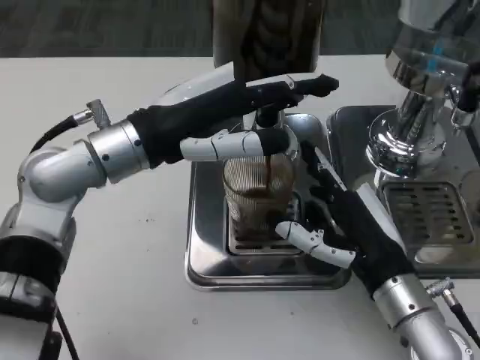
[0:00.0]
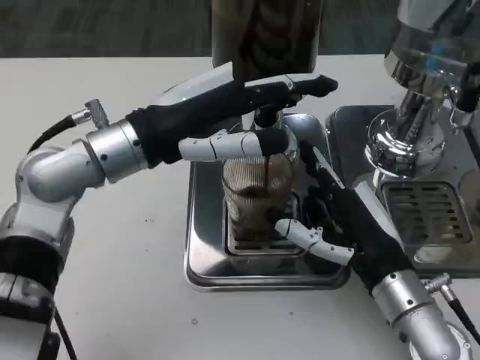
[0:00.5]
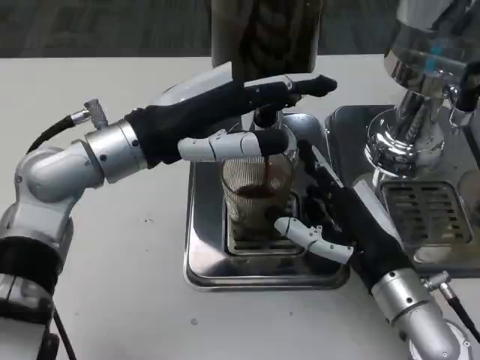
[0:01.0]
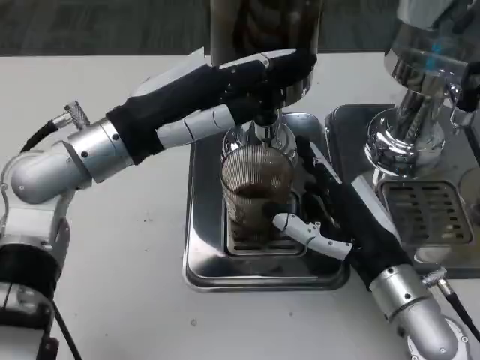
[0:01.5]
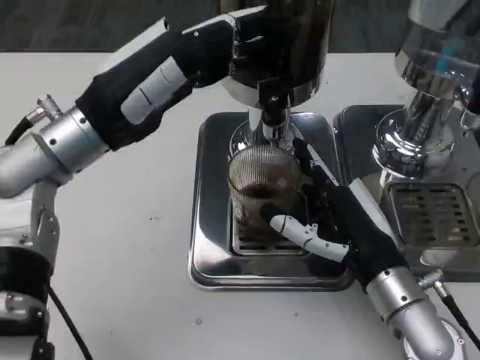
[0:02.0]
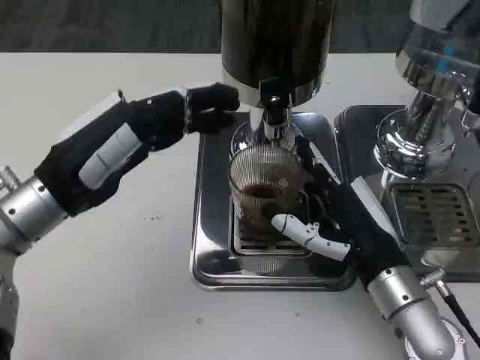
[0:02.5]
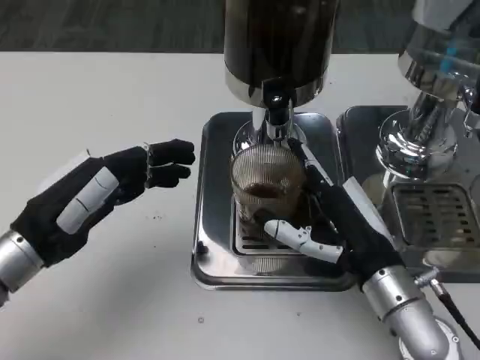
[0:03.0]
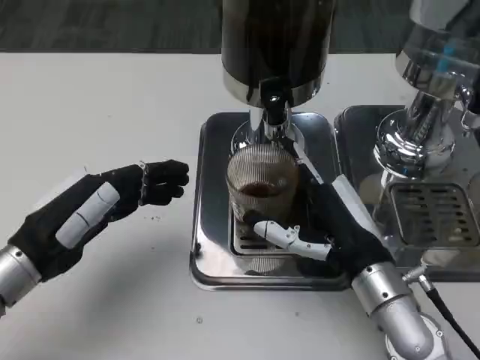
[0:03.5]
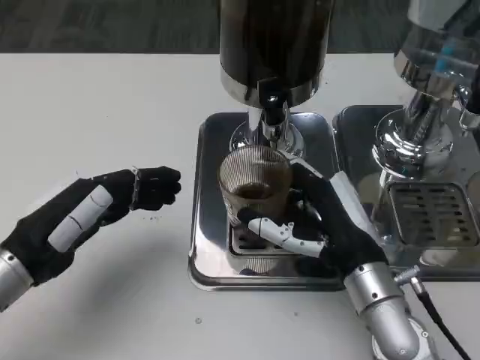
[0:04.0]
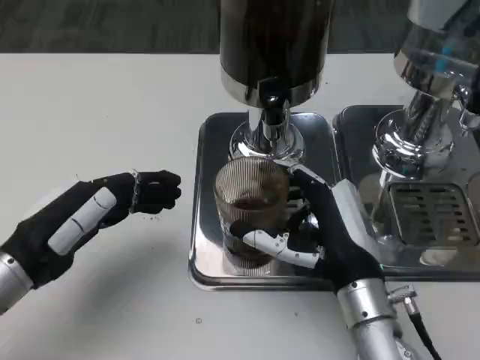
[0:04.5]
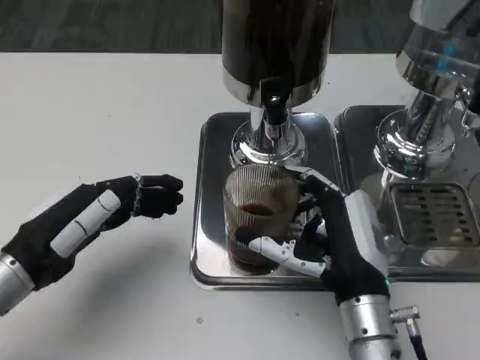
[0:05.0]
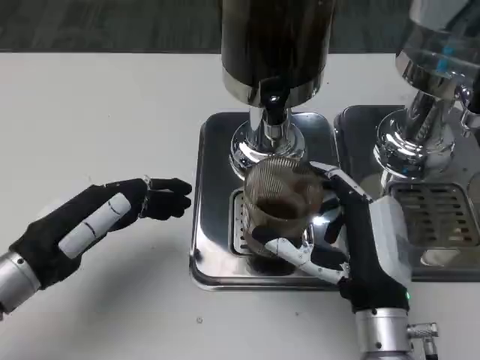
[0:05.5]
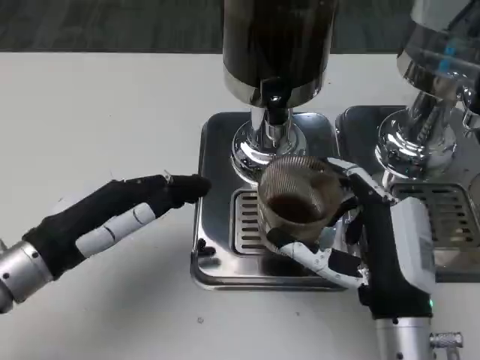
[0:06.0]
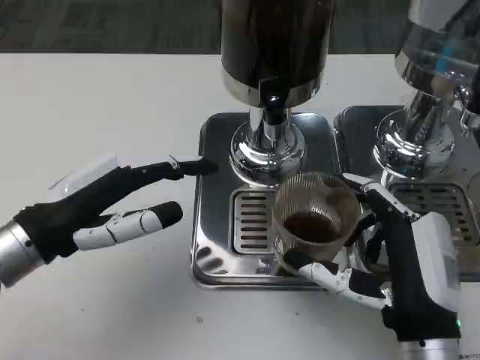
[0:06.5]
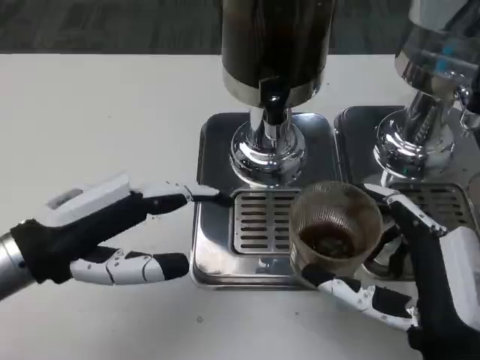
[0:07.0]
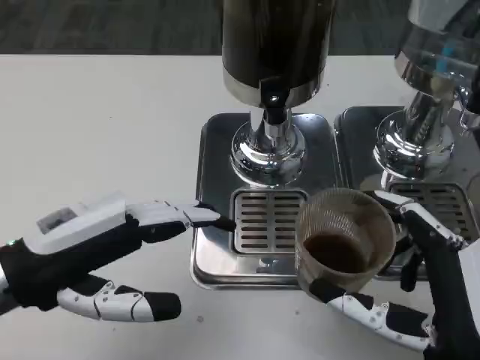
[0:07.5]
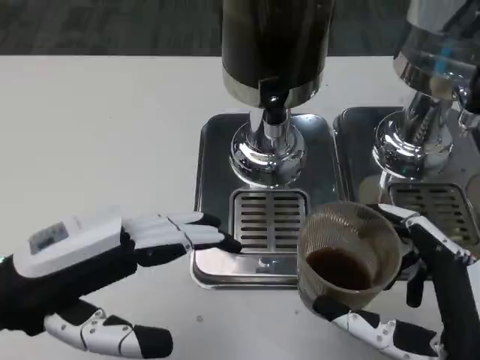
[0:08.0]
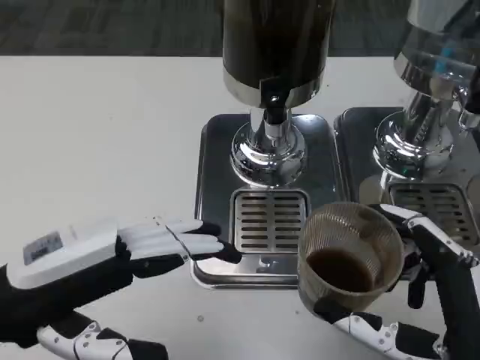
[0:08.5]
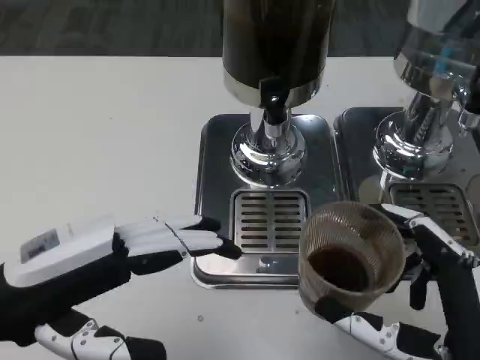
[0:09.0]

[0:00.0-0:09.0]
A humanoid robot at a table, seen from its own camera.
Task of the whole recording: Grasp the cup under the faucet to collect the drink, then remove the cup.
0:02.0 to 0:04.5: The left hand shifts roughly 15 cm downward, backward and to the left.
0:04.5 to 0:07.0: The right hand moves backward and to the right, roughly 10 cm. The left hand shifts some 5 cm upward.

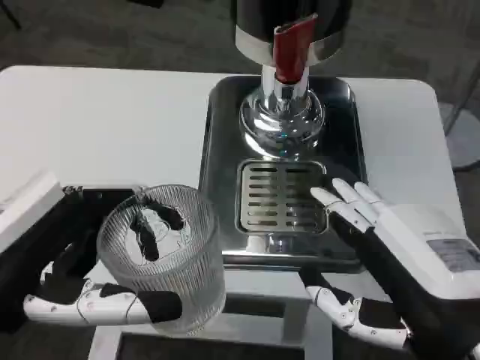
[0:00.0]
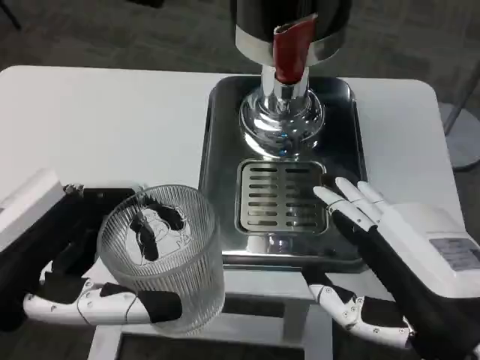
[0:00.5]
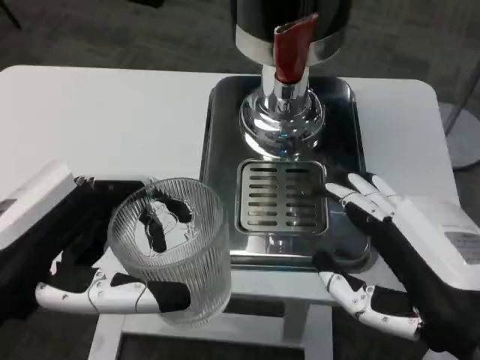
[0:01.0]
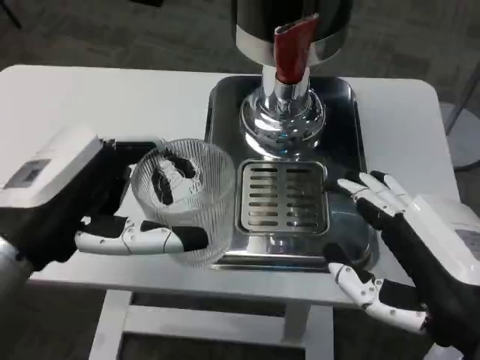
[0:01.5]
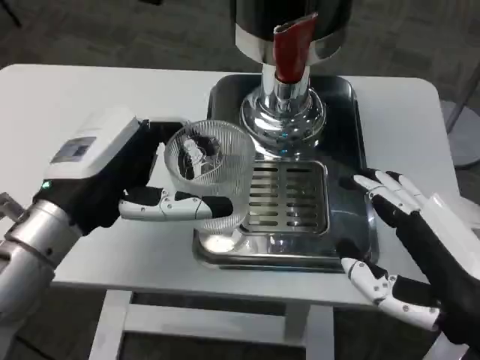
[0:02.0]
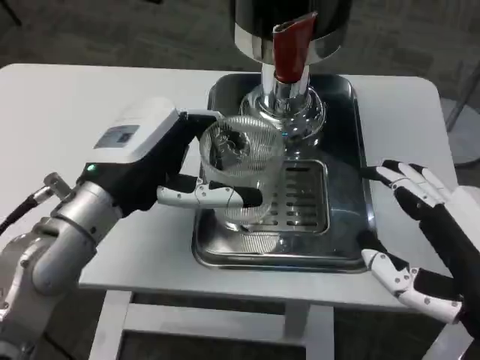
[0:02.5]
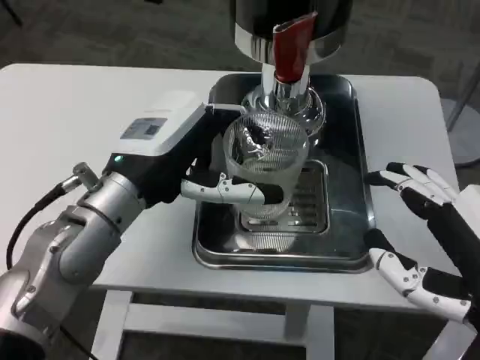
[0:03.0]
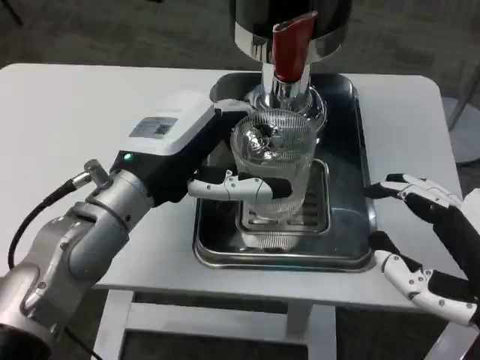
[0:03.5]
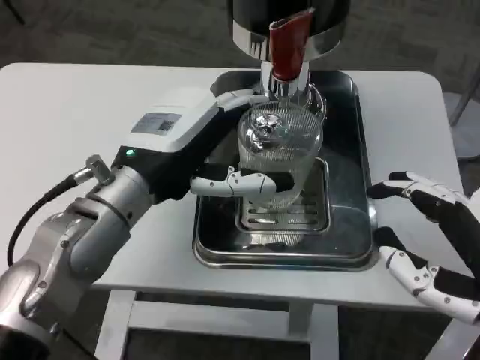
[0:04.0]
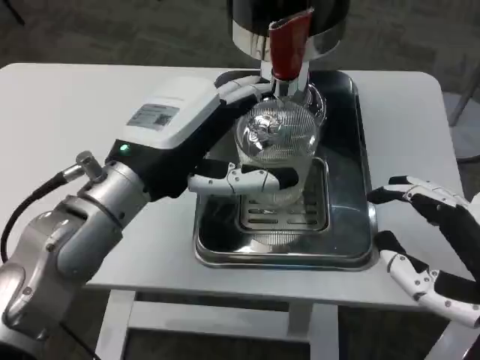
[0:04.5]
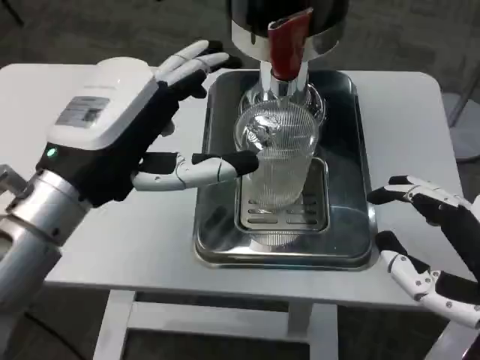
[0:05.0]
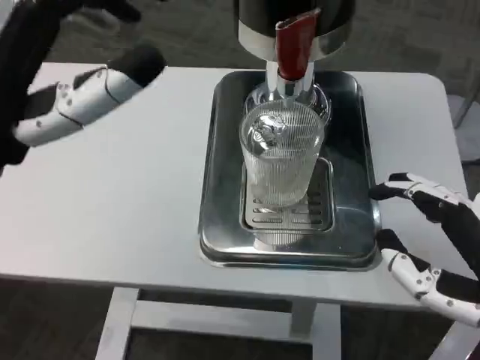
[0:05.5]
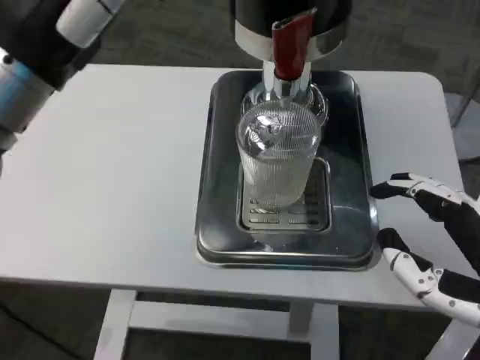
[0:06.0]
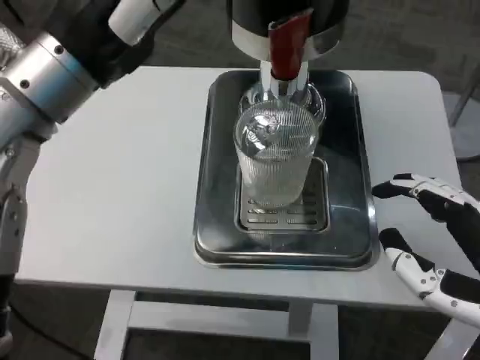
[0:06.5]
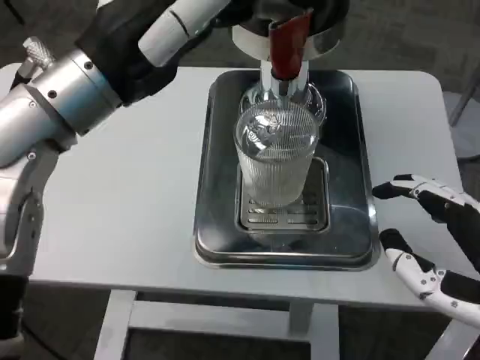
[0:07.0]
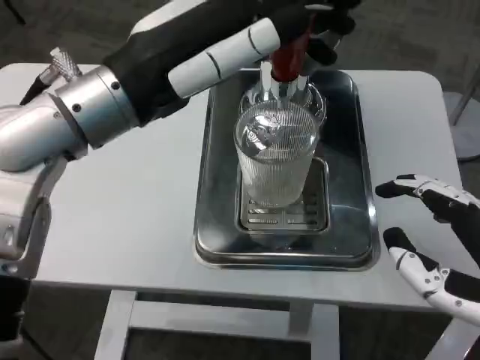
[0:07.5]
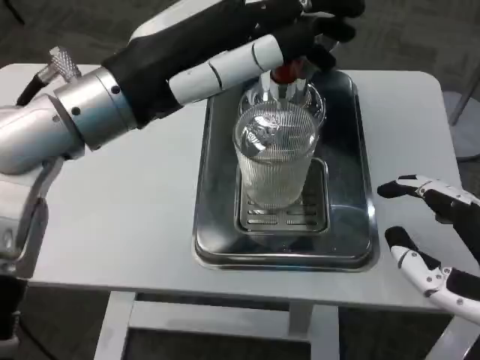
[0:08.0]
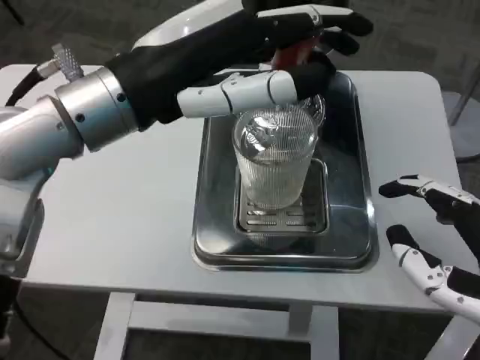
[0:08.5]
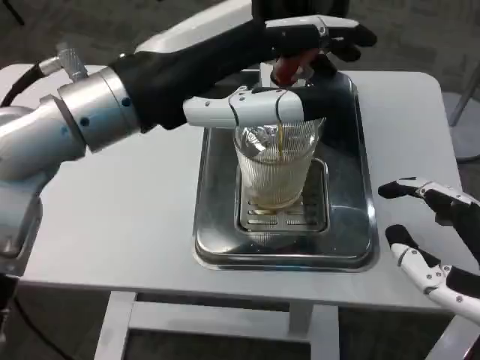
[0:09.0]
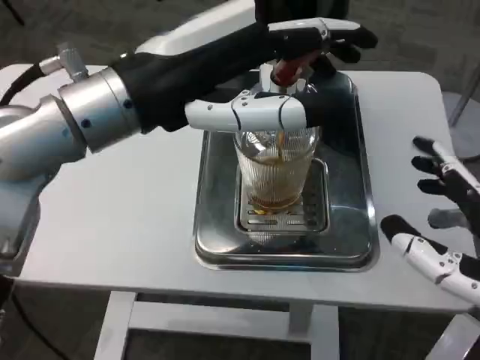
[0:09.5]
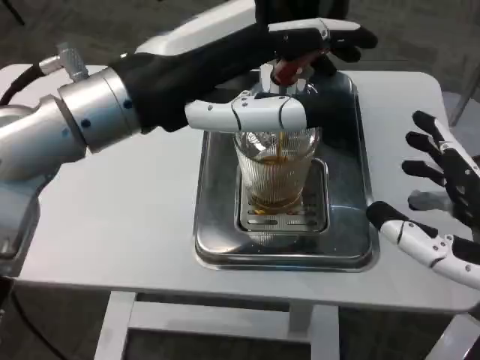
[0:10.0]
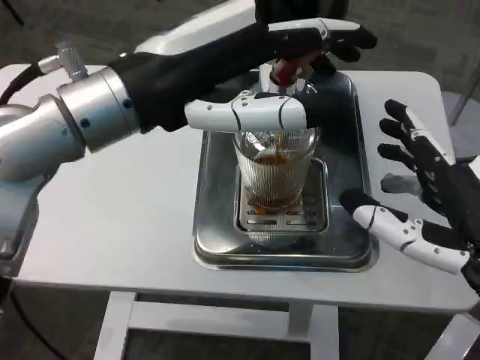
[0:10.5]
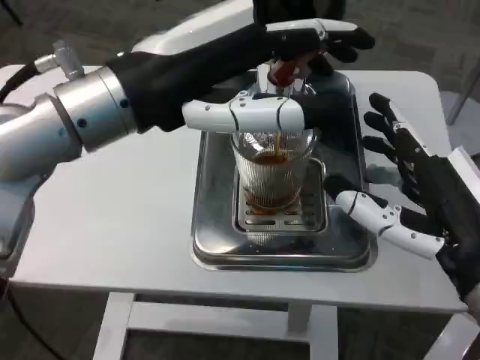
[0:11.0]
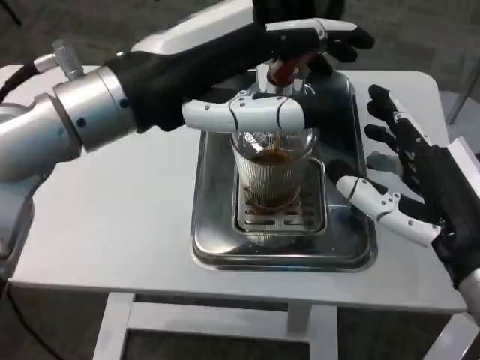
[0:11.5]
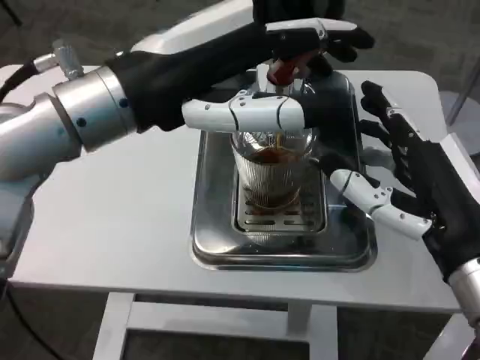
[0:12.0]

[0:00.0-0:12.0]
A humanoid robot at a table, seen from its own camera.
Task of the whole recording: Grasp the cup under the faucet to collect the drink, then remove the cup.
0:00.0 to 0:02.0: The left hand goes roughly 10 cm forward.
0:02.0 to 0:04.0: The left hand travels to the right by roughly 5 cm.
0:04.0 to 0:06.0: The left hand moves upward, some 10 cm.
0:10.0 to 0:12.0: The right hand travels forward by roughly 5 cm.

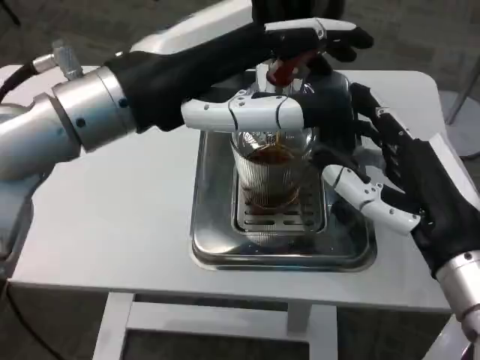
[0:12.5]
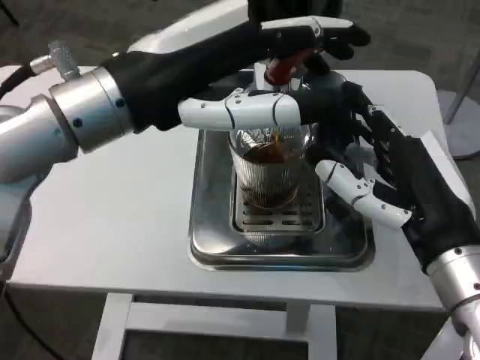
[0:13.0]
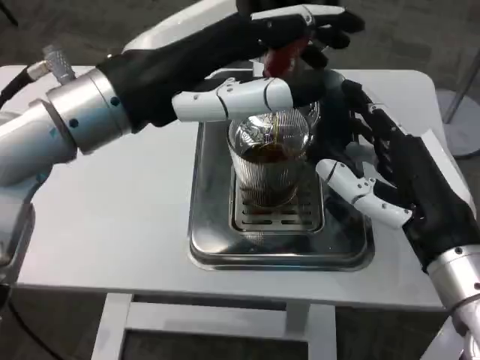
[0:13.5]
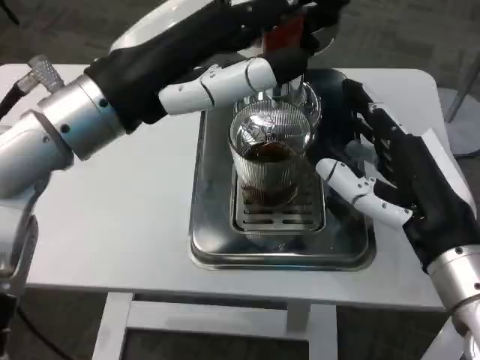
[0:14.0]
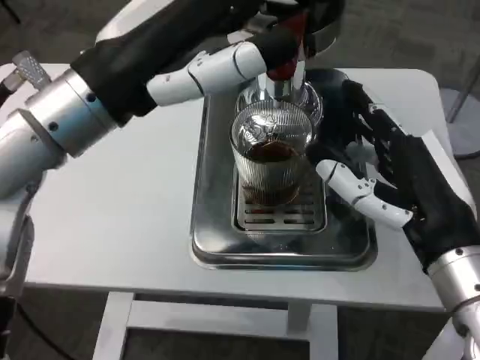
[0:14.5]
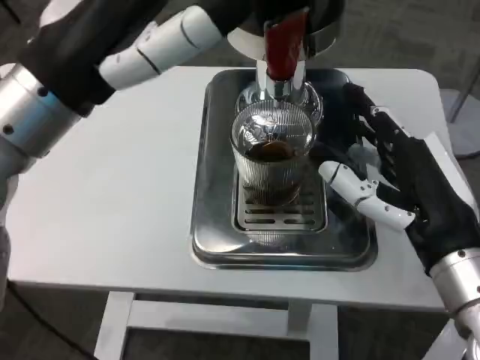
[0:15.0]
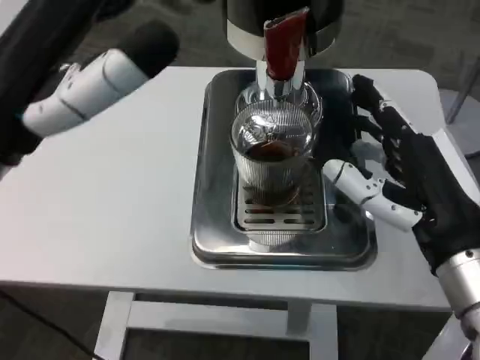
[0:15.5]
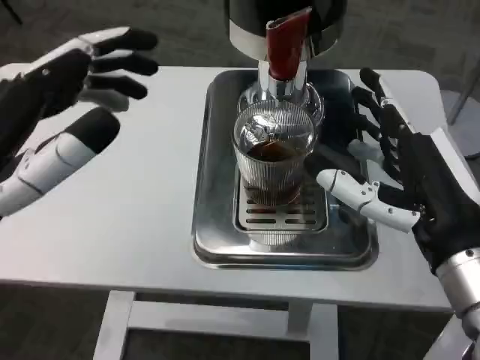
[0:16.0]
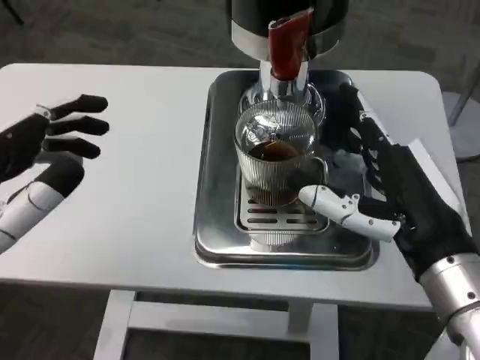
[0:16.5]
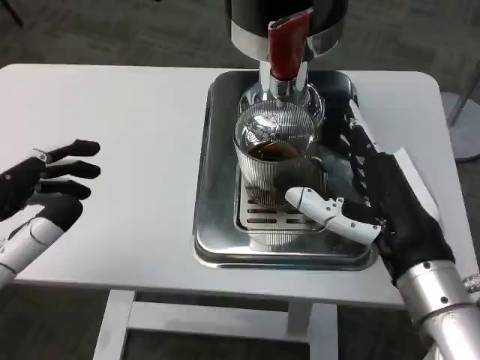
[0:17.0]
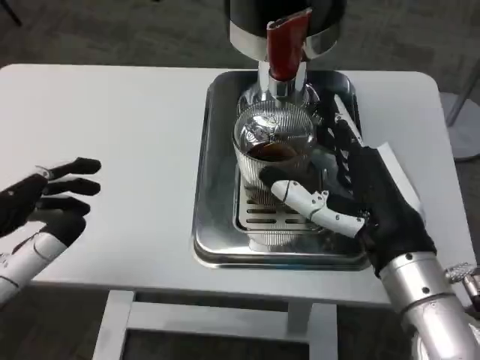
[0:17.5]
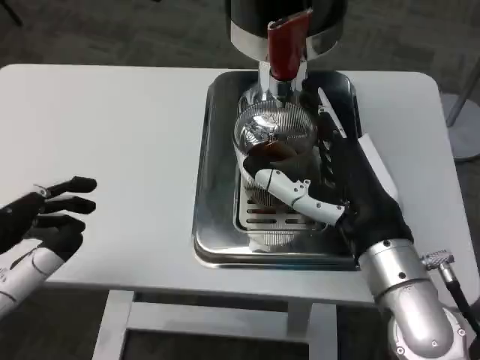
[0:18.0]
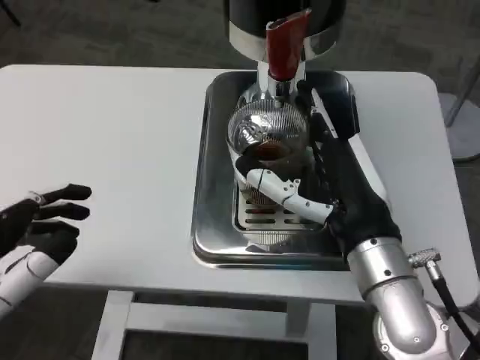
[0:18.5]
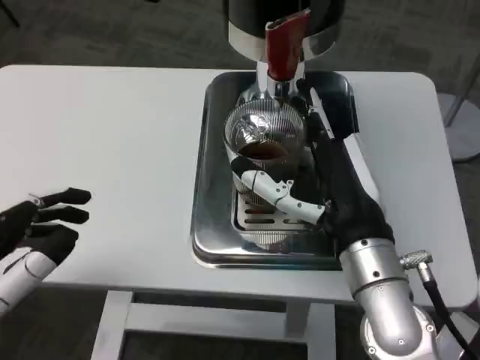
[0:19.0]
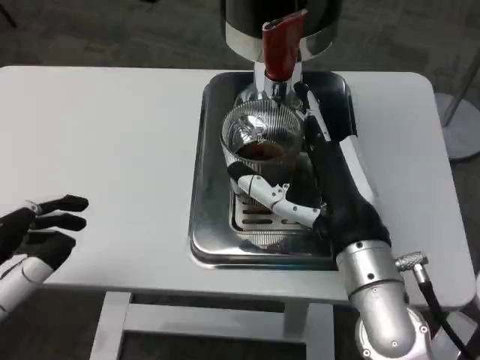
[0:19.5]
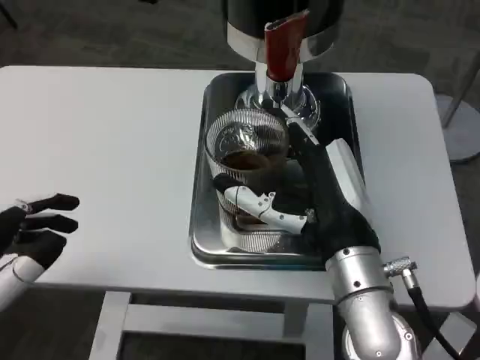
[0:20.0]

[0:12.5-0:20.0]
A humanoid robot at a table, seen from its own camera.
Task of the whole recording: Grasp the cup under the faucet to collect the drink, then remove the cup.
0:14.5 to 0:16.5: The left hand is displaced backward, downward and to the left by some 15 cm.
0:16.5 to 0:18.0: The right hand ends up roughly 5 cm from where it was.
